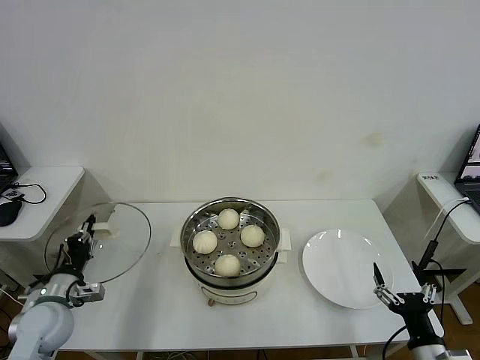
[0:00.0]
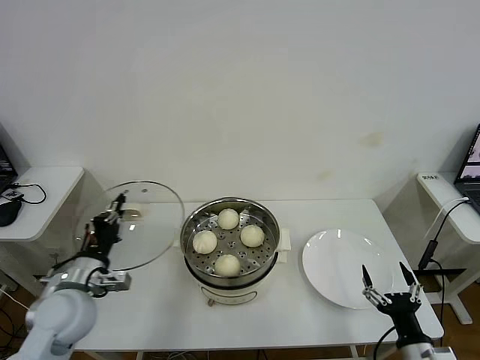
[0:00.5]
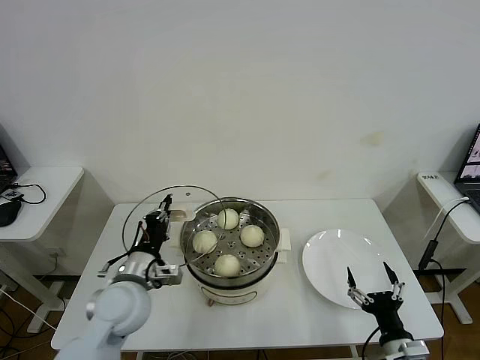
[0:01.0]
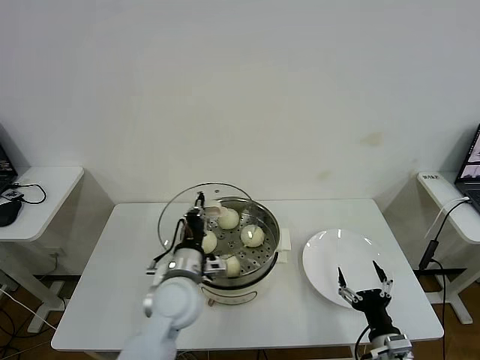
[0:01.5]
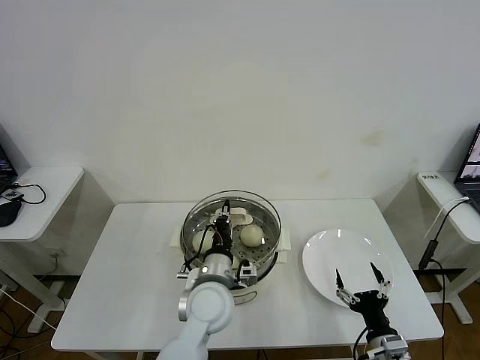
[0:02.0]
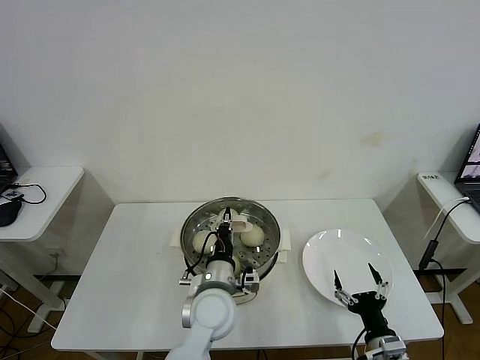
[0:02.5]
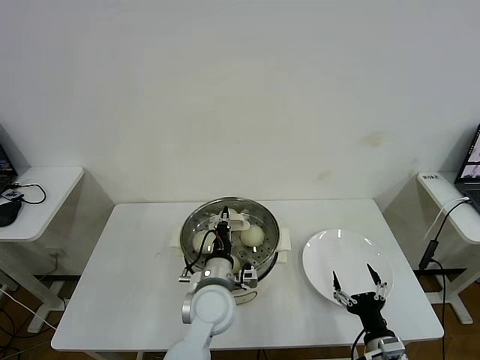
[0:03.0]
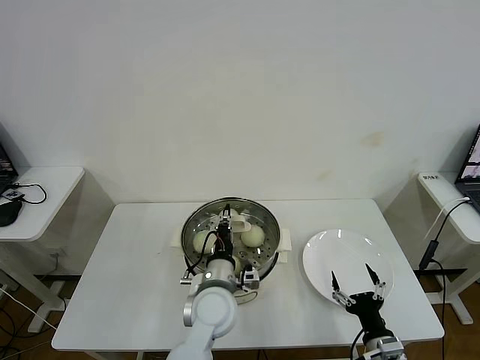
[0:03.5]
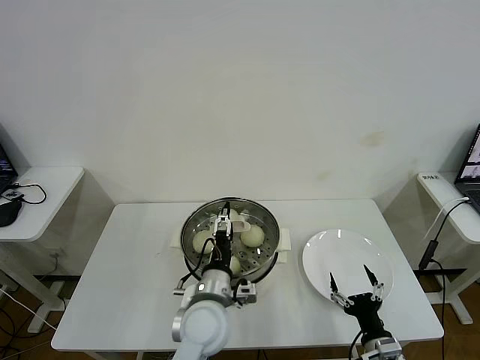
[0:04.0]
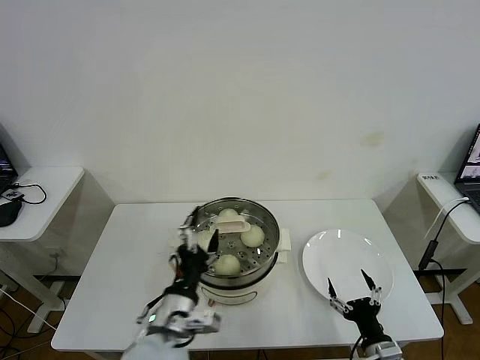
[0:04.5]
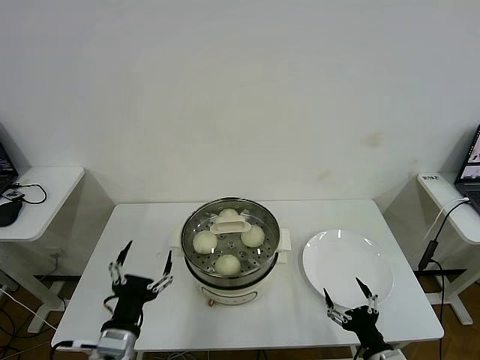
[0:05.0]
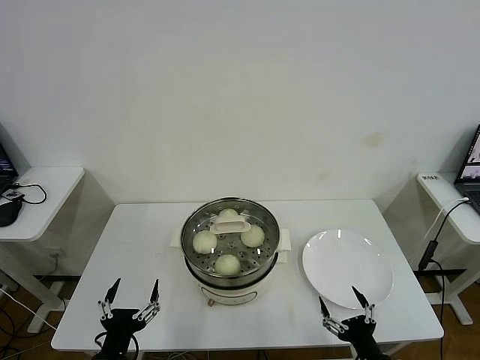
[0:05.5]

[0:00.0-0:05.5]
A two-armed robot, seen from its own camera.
Task of the whole recording: take steamed baozi put them in steamer then cover it.
Step, 0:00.0 to 0:03.5: Place the pot lid on the steamer with left gripper.
0:00.0 to 0:02.0: The left gripper goes about 35 cm to the right. Meanwhile the right gripper moves to the left, some 5 cm.
0:02.0 to 0:03.5: The grippers make only small movements.
0:03.5 to 0:05.5: The left gripper heads to the left and backward, covering about 25 cm, and opens its fingers.

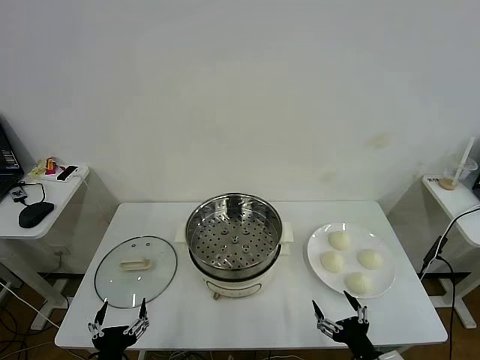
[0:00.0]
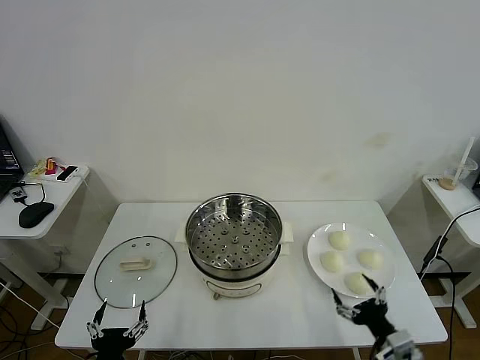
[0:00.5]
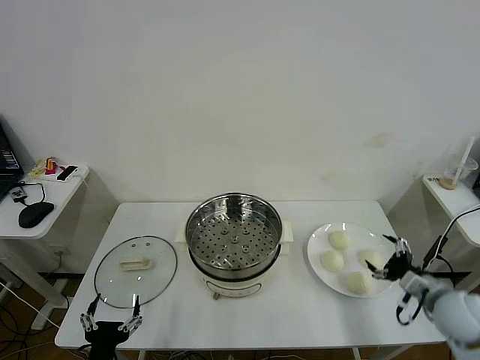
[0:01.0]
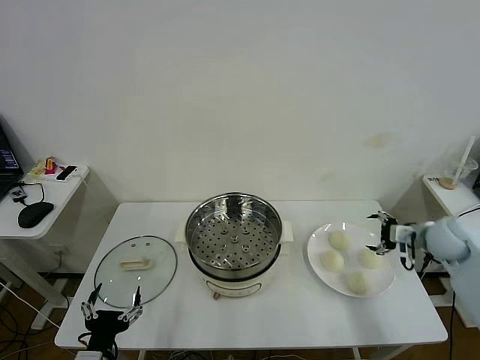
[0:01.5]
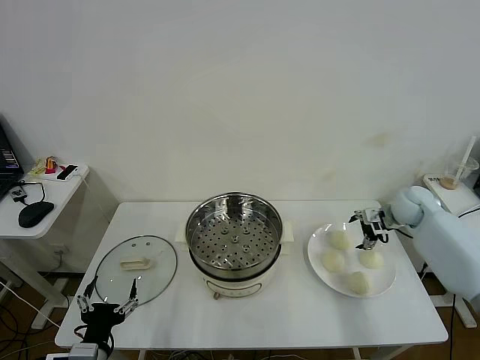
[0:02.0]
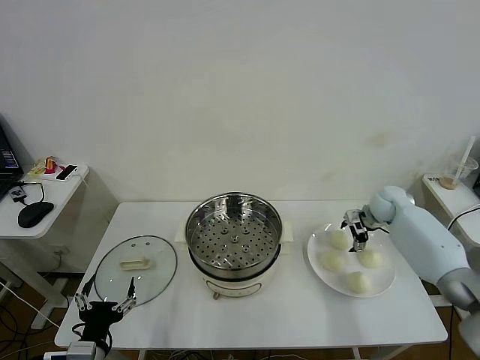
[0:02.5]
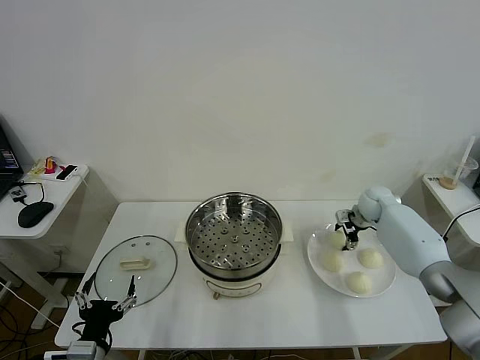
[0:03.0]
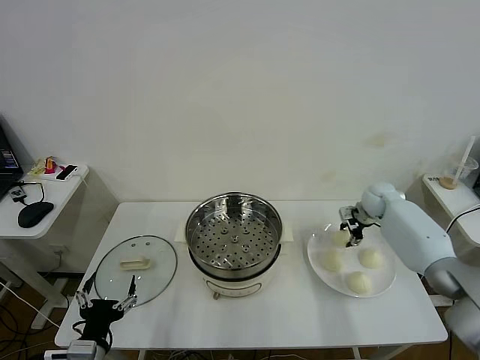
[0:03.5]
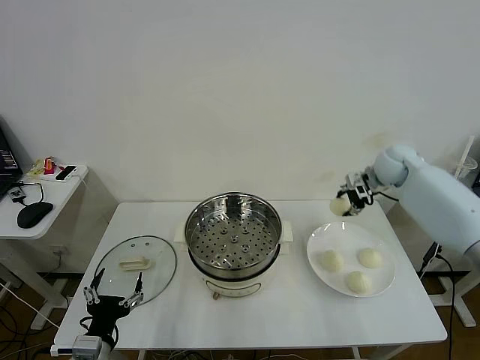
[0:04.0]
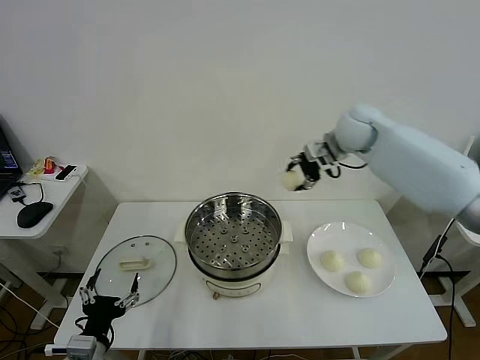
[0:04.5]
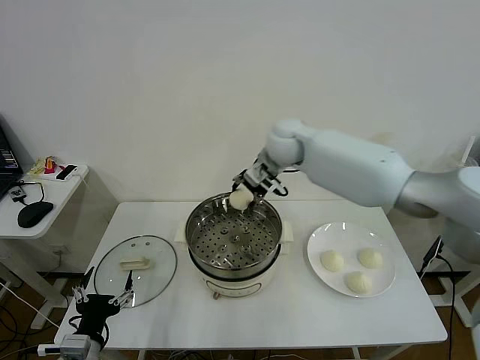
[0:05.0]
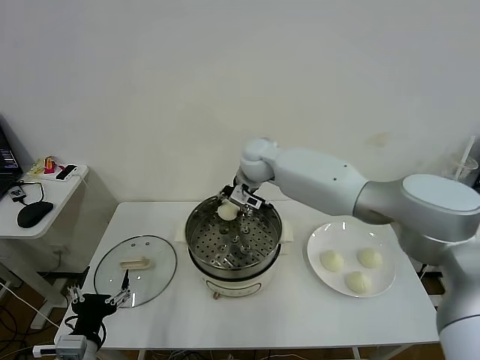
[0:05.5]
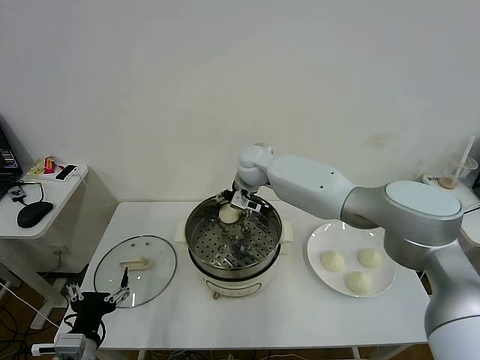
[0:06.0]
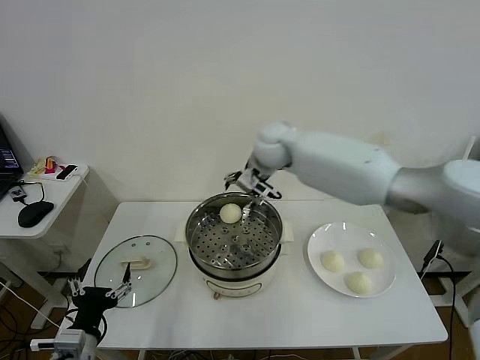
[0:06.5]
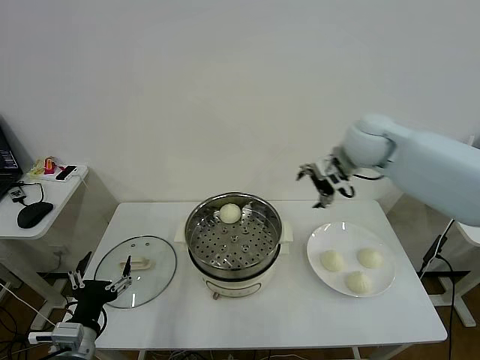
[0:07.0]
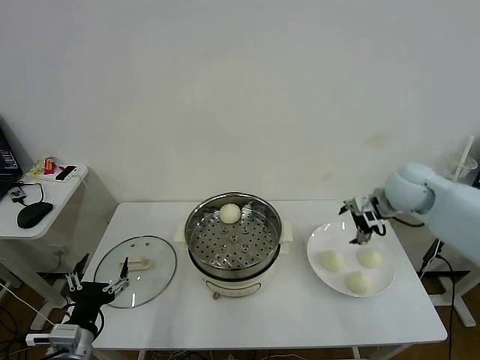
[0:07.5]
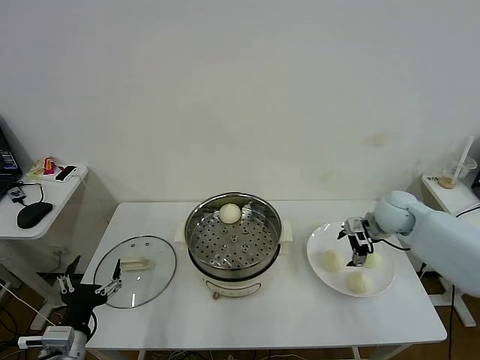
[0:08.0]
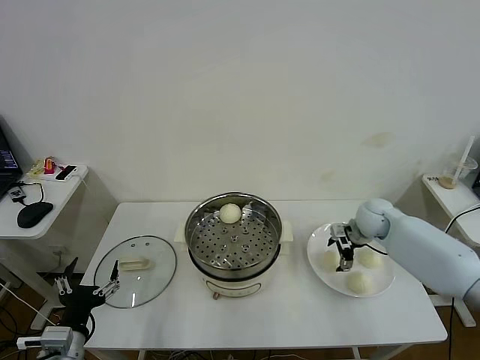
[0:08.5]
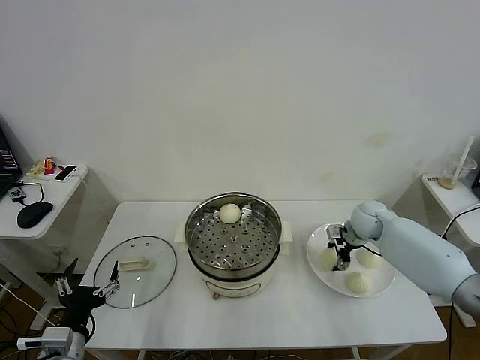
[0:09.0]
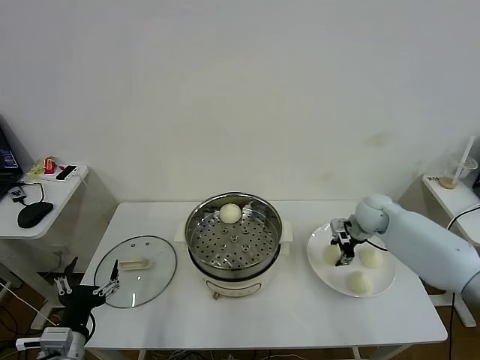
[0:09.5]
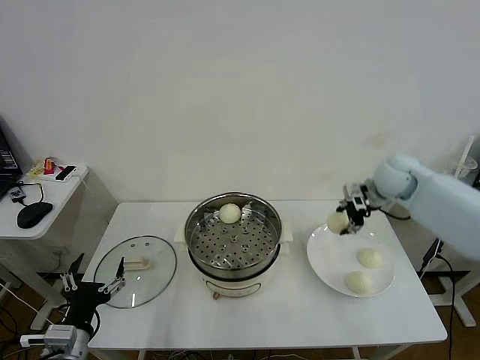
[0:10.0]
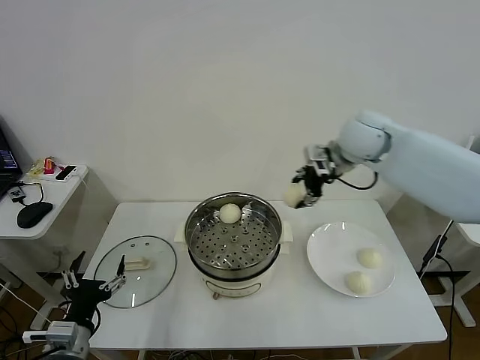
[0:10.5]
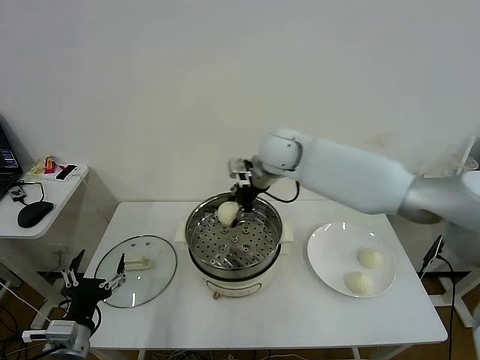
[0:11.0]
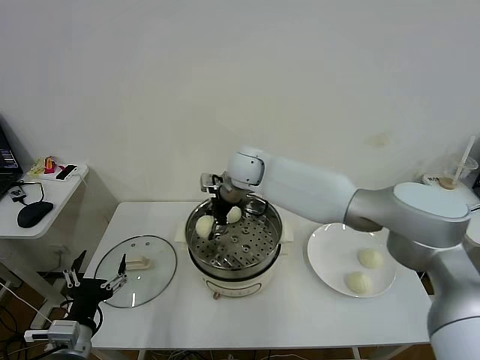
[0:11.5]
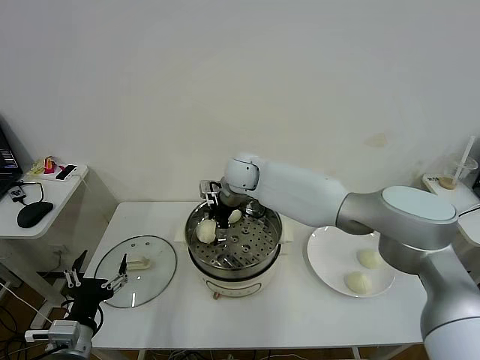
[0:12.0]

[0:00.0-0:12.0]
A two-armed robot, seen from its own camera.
Task of the whole recording: take steamed baozi put them in steamer then cover it.
Step, 0:00.0 to 0:03.0: Grasp the baozi in the plate with right gripper.
Step, 0:03.5 to 0:06.0: Place the baozi on the steamer with right gripper.
Step, 0:06.5 to 0:09.0: Grasp the baozi in the plate with right gripper.
0:02.0 to 0:04.0: The right gripper travels upward and to the left by roughly 15 cm, and closes up.
0:04.0 to 0:06.0: The right gripper moves to the left, approximately 30 cm, and opens up.
0:06.0 to 0:08.0: The right gripper is displaced to the right by approximately 30 cm.
0:08.0 to 0:10.0: The right gripper heads upward, covering about 10 cm, and closes.
0:10.0 to 0:12.0: The right gripper moves to the left, roughly 35 cm, and opens up.

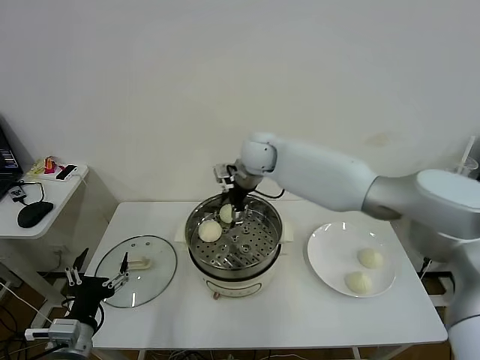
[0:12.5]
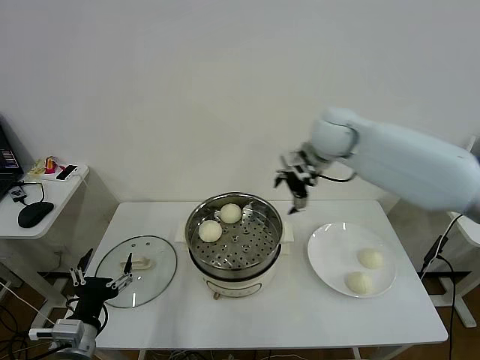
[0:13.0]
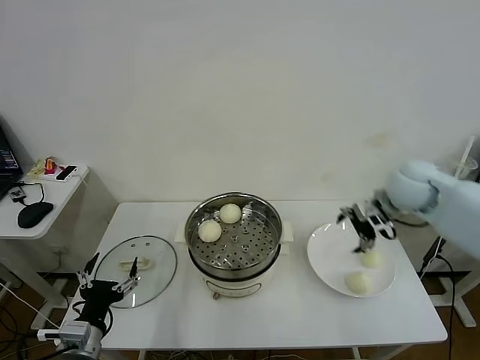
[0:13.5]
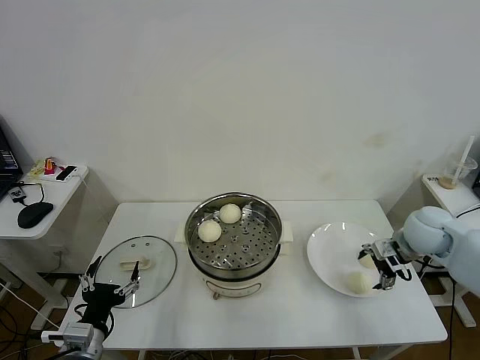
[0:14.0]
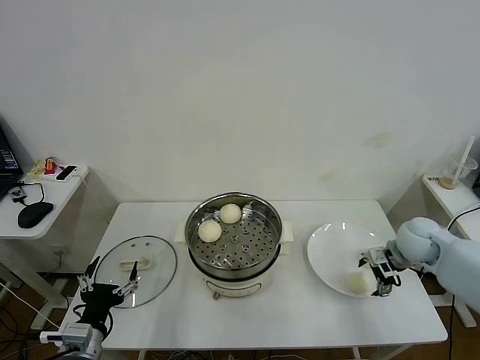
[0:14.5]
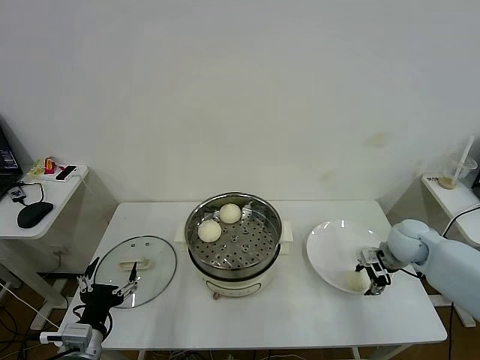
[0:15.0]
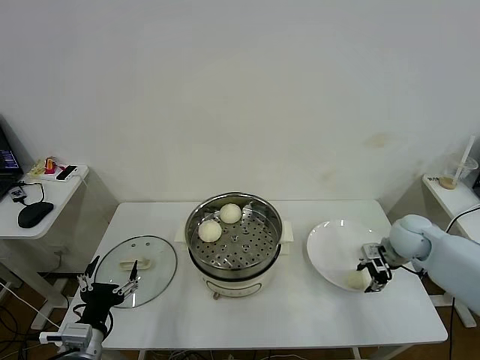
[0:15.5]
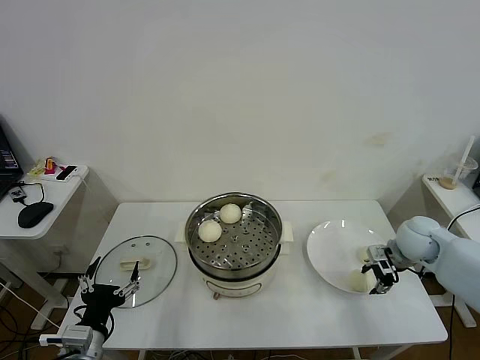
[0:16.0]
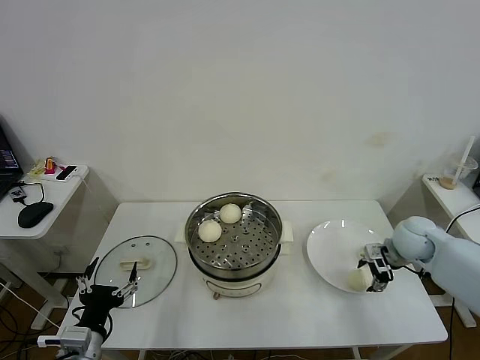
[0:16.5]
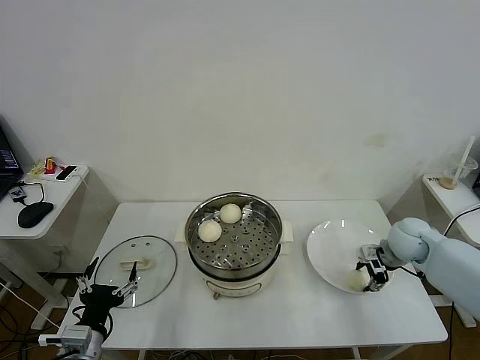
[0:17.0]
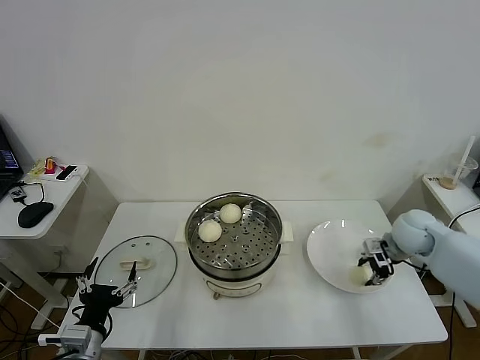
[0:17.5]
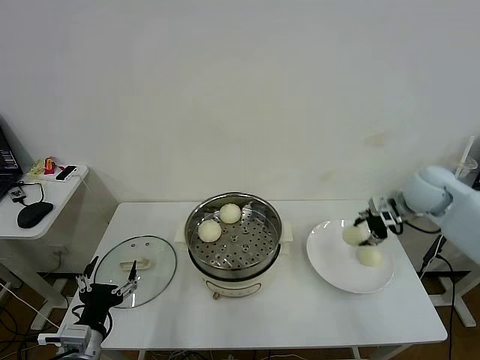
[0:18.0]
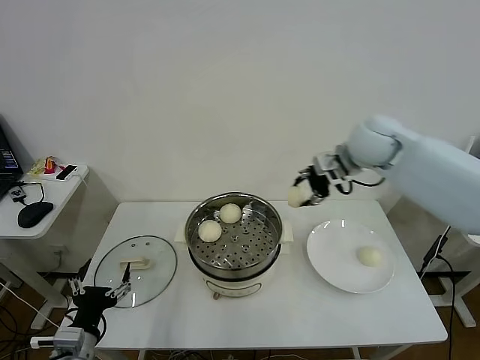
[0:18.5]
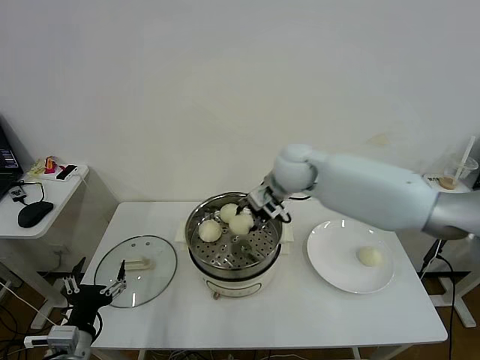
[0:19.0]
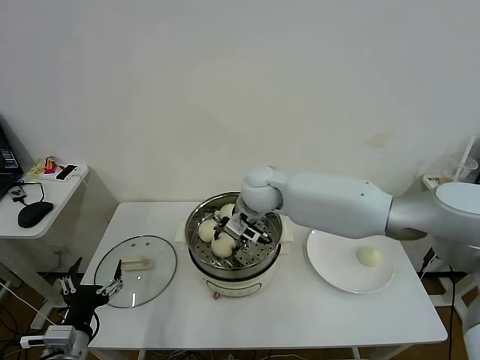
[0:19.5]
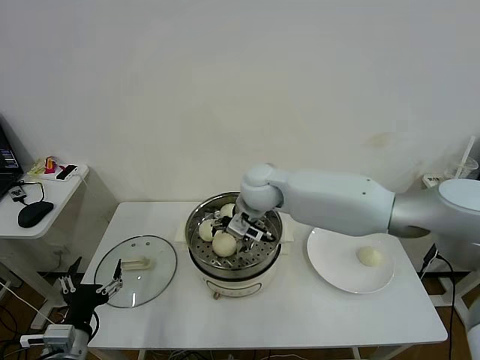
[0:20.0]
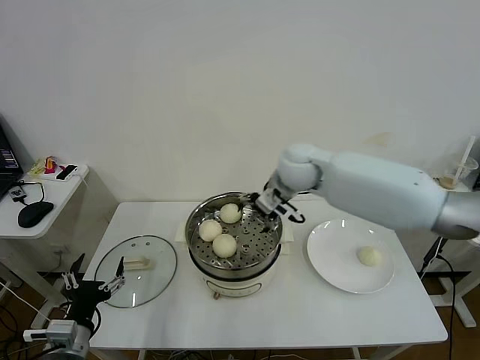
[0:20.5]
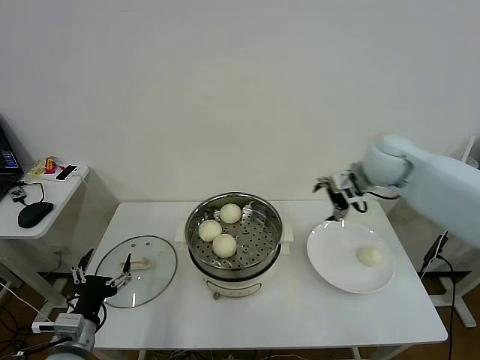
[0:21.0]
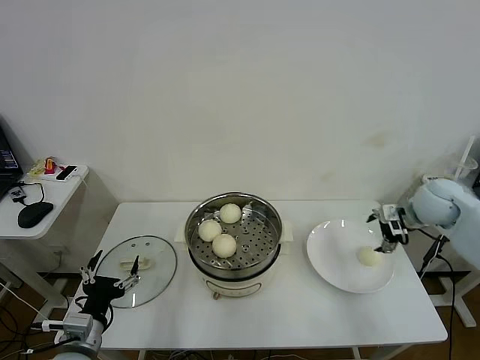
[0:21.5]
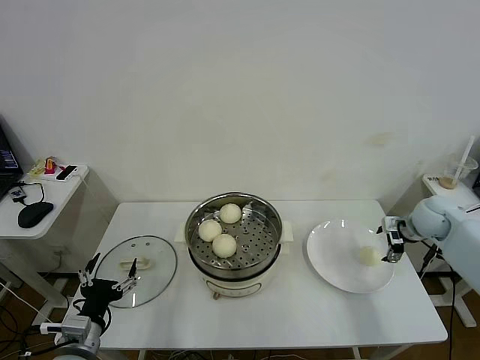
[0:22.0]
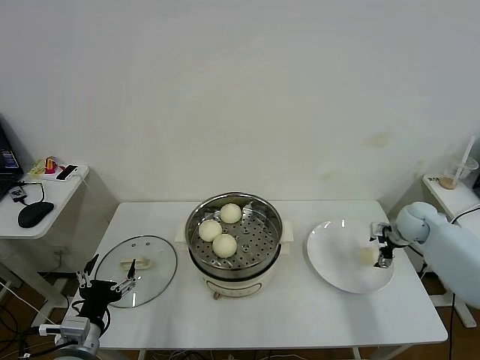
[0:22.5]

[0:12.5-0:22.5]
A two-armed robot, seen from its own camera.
Task of the whole recording: take steamed baozi put them in steamer then cover it.
Step, 0:12.5 to 0:17.0: Grasp the baozi in the plate with right gripper.
Step, 0:17.5 to 0:20.0: Place the baozi on the steamer with right gripper.
0:12.5 to 0:14.5: The right gripper shifts roughly 40 cm to the right, downward and backward.
0:14.5 to 0:16.5: The right gripper closes up.
0:16.5 to 0:18.5: The right gripper moves upward and to the left, roughly 25 cm, and closes its fingers.
0:18.5 to 0:20.5: The right gripper moves to the left and downward, approximately 10 cm, and opens.
0:20.5 to 0:22.5: The right gripper goes roughly 35 cm to the right and downward.
